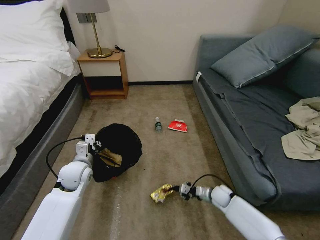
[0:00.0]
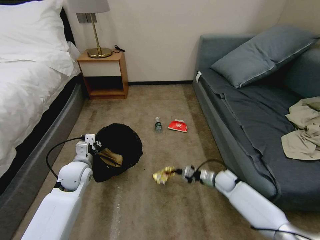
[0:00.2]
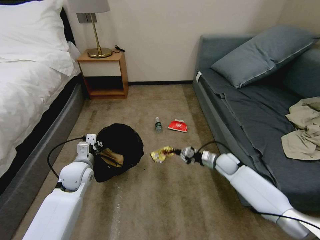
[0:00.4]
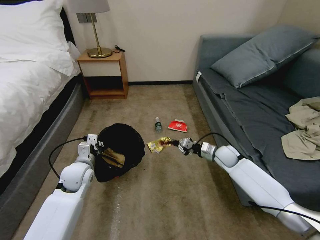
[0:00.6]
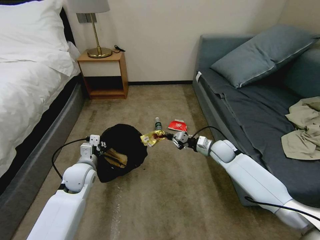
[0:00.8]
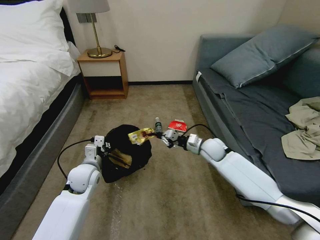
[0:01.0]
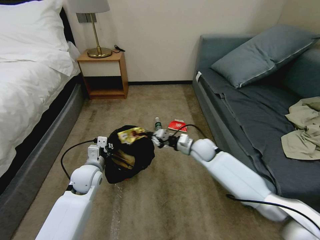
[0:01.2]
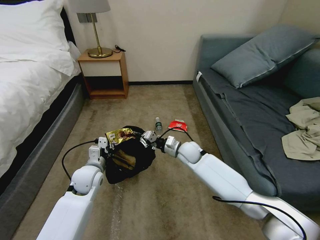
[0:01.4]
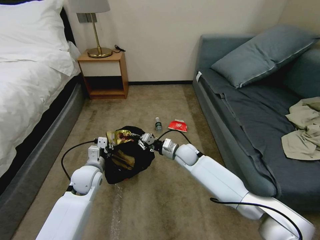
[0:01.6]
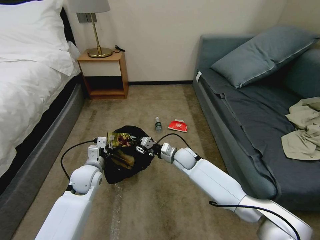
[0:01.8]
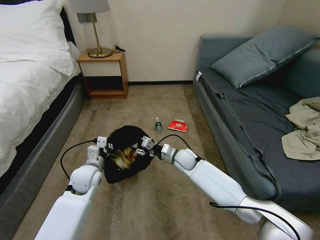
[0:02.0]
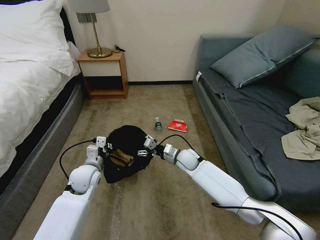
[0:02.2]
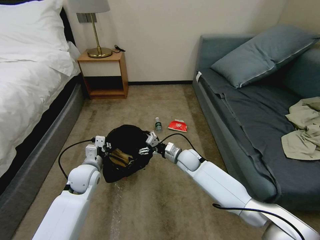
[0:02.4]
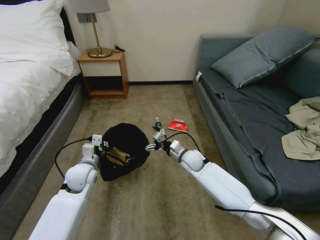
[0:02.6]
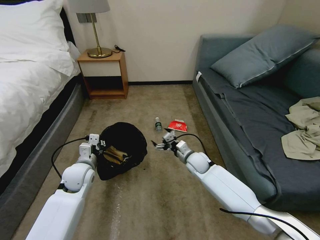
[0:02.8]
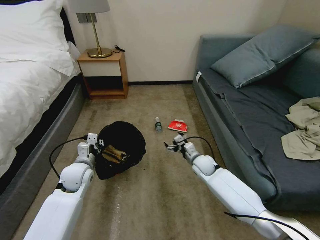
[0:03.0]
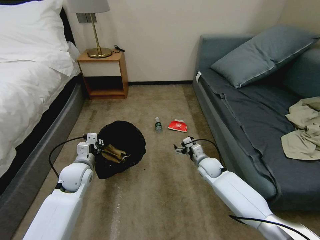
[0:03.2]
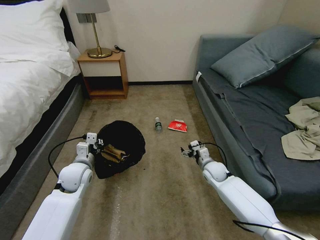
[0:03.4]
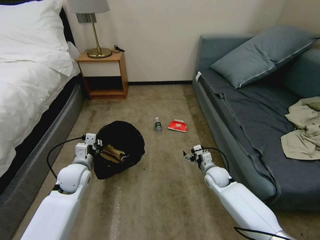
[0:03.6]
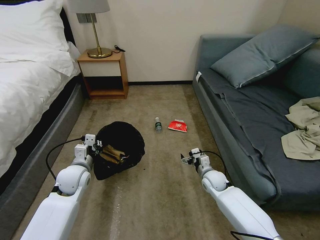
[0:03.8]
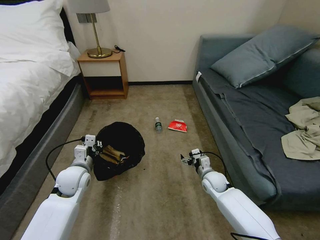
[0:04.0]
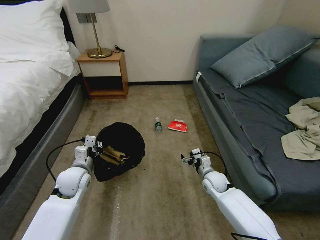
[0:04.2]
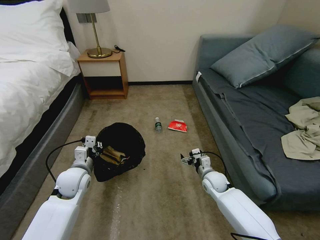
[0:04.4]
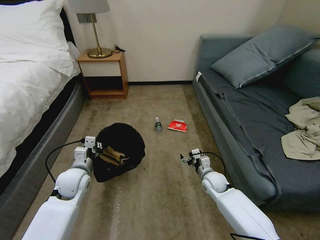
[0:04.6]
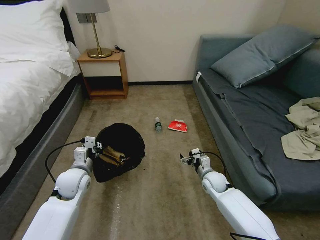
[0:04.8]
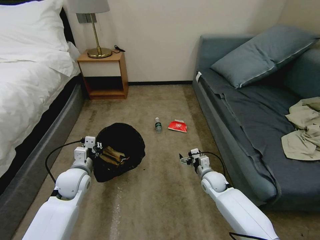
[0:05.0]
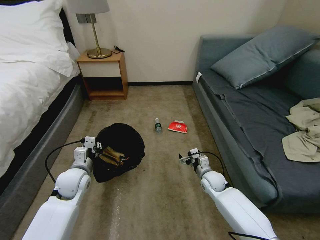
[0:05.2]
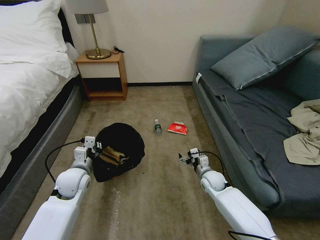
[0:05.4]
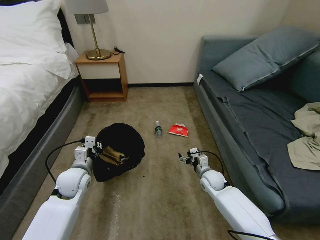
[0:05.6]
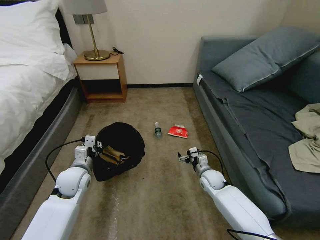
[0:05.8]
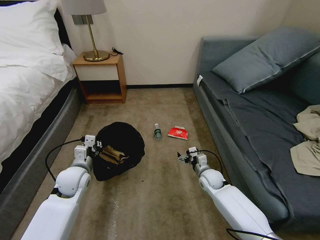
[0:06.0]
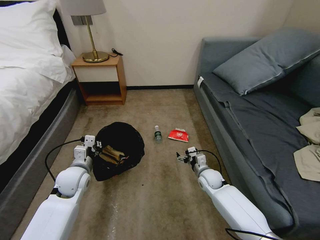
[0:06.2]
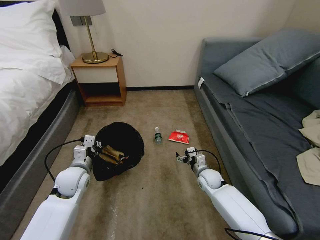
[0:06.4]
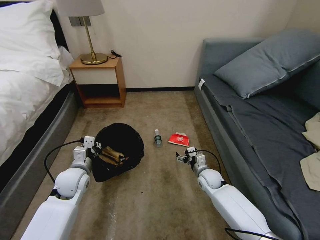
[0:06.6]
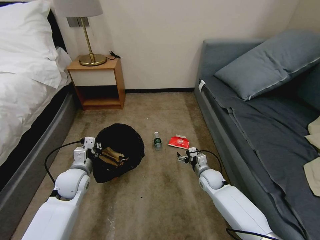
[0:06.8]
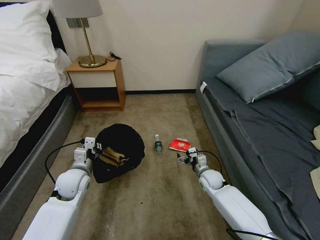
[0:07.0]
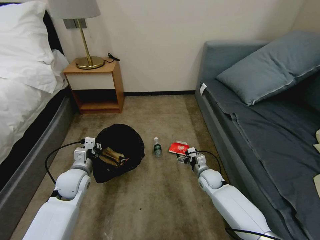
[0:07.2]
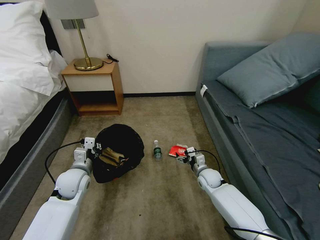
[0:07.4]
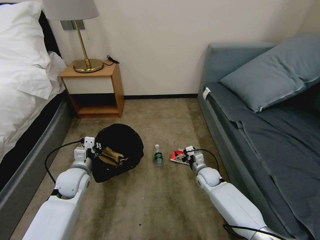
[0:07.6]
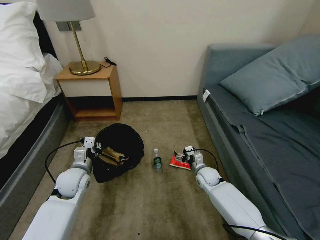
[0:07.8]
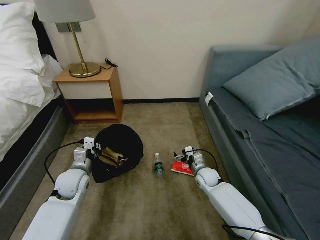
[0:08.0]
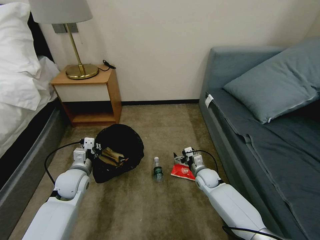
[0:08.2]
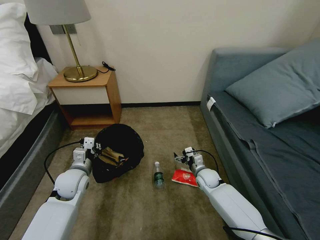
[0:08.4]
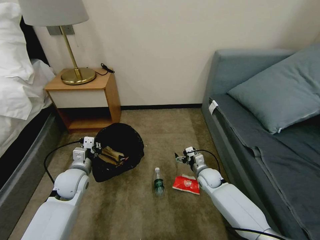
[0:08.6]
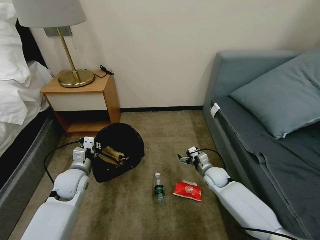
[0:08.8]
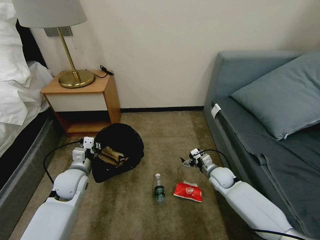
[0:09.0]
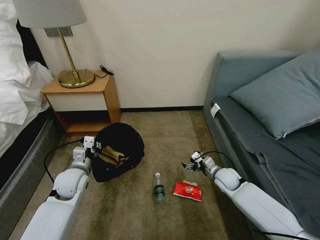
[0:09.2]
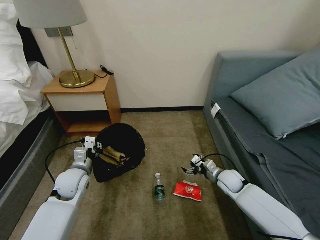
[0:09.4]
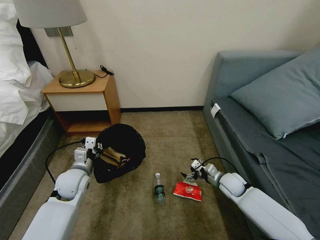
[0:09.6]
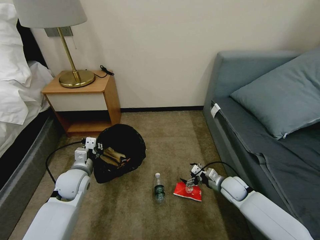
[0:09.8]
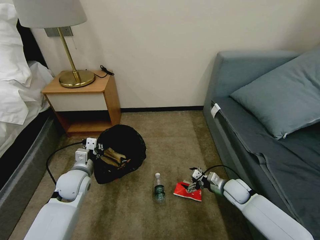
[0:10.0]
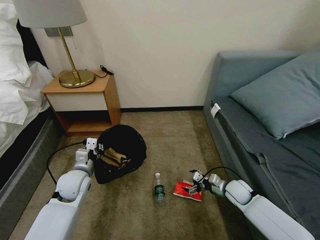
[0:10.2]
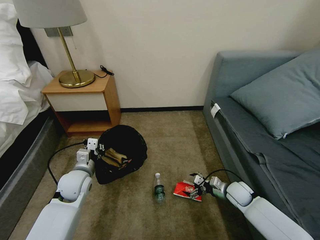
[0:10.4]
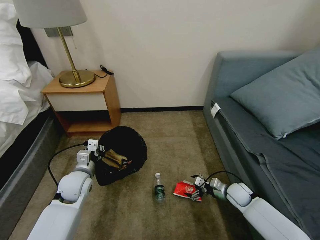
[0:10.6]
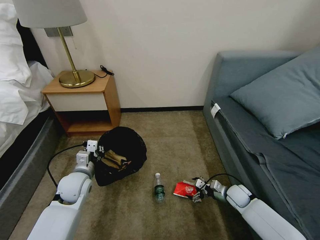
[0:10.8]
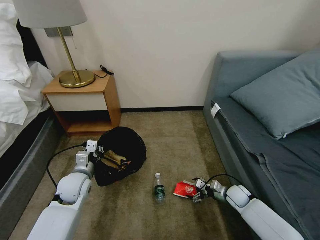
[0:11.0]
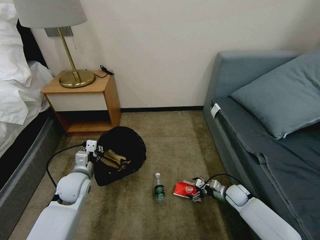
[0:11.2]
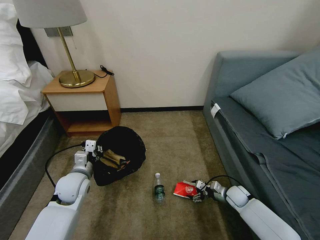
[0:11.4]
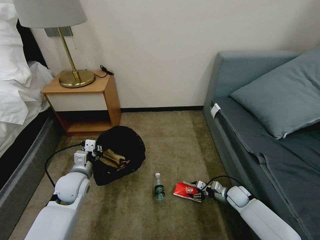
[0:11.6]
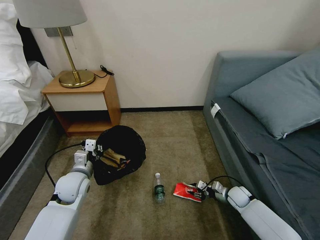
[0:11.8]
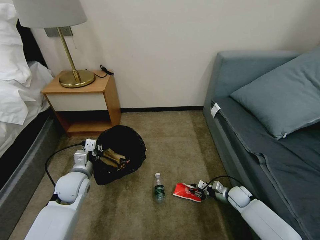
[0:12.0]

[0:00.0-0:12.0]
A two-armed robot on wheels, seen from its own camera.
Task of the whole recording: Pick up the trash bin, then pick up the garbage on the floor and place it into the trash bin.
0:00.0 to 0:01.6: The right gripper travels to the left, upward and forward by some 25 cm.
0:01.6 to 0:03.0: The right gripper travels to the right by approximately 10 cm, and opens.
0:03.0 to 0:04.4: The right gripper heads backward, covering approximately 5 cm.
0:04.4 to 0:06.0: The grippers stay close to where they were, moving slightly.
0:07.6 to 0:09.0: The right gripper moves to the right, approximately 5 cm.
0:09.0 to 0:10.4: The right gripper moves to the right and backward, about 10 cm.
0:10.4 to 0:12.0: The right gripper shifts some 5 cm downward, and closes.

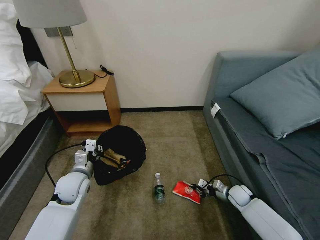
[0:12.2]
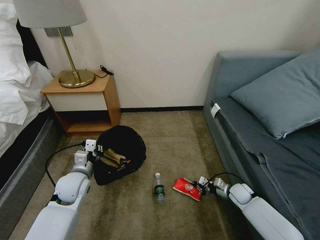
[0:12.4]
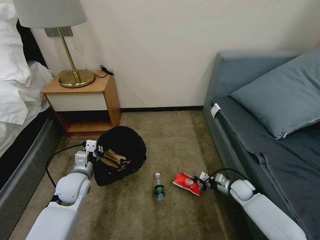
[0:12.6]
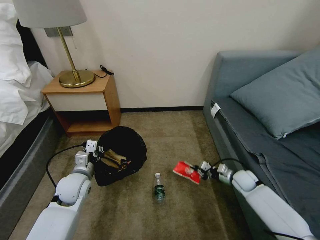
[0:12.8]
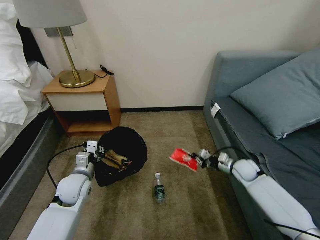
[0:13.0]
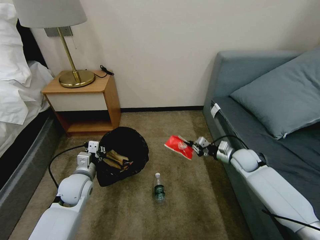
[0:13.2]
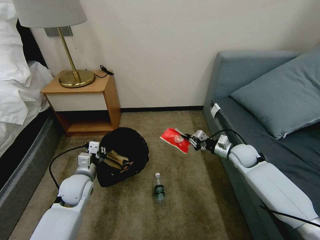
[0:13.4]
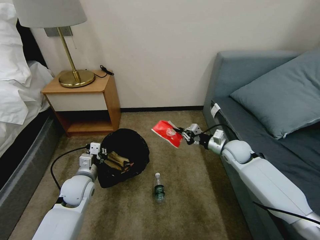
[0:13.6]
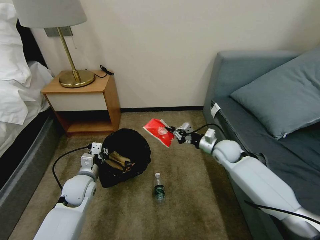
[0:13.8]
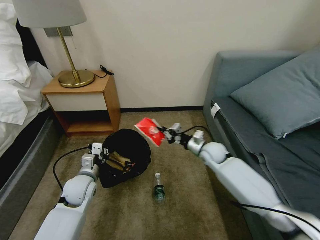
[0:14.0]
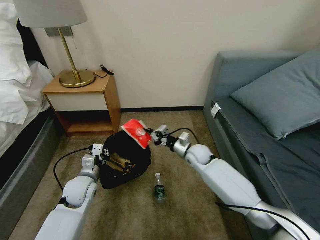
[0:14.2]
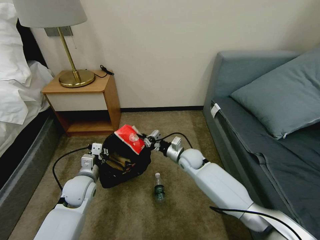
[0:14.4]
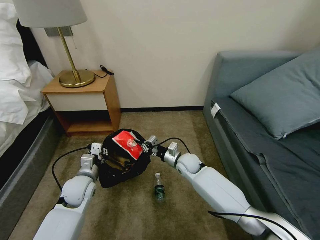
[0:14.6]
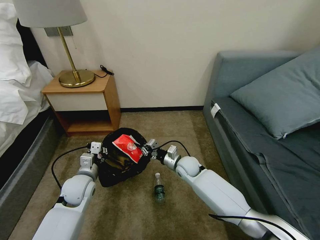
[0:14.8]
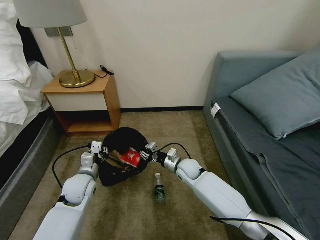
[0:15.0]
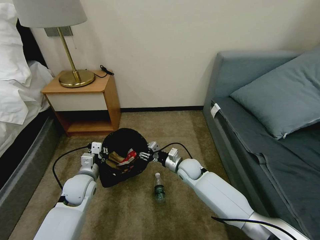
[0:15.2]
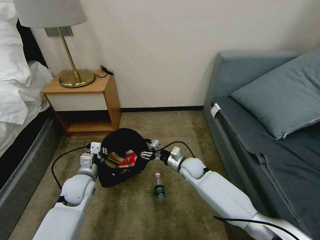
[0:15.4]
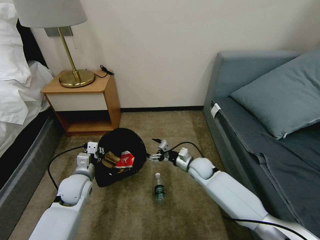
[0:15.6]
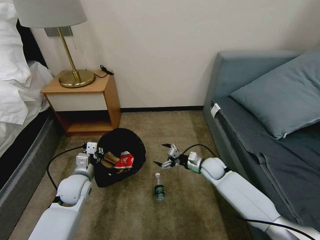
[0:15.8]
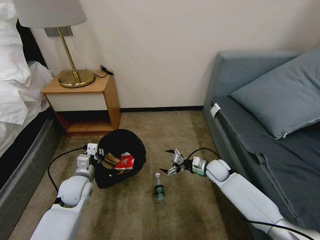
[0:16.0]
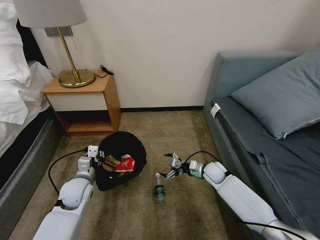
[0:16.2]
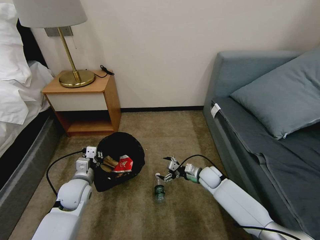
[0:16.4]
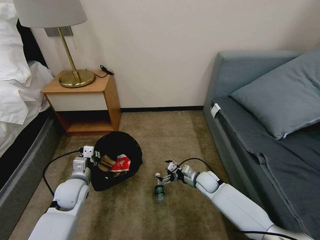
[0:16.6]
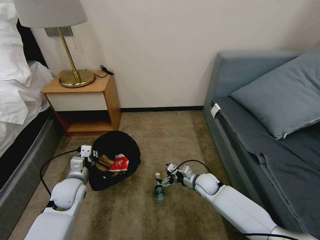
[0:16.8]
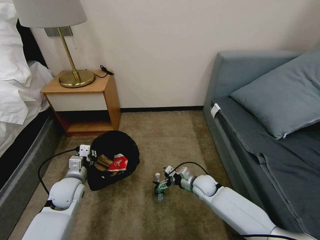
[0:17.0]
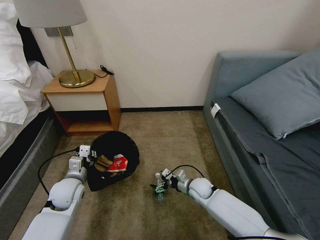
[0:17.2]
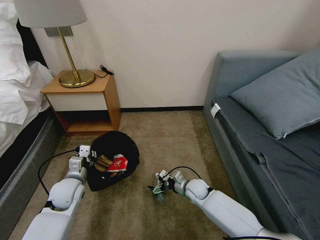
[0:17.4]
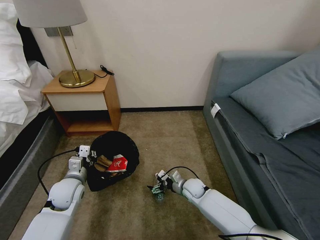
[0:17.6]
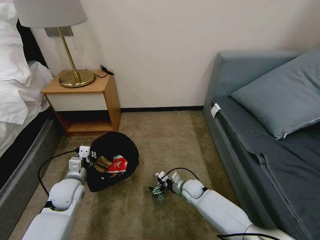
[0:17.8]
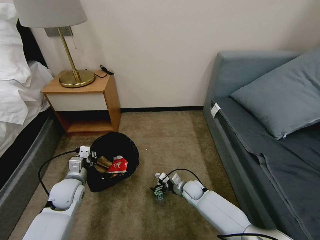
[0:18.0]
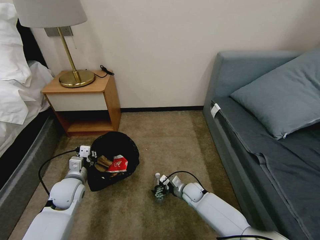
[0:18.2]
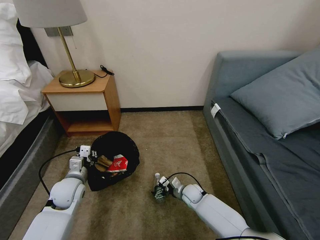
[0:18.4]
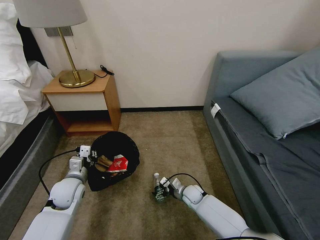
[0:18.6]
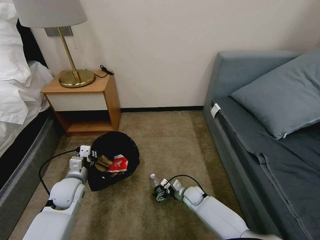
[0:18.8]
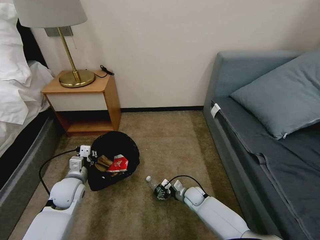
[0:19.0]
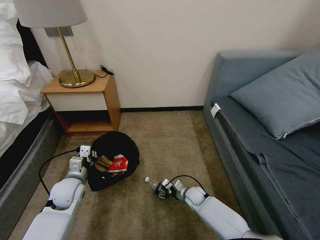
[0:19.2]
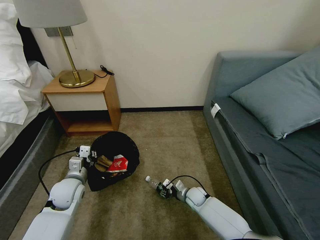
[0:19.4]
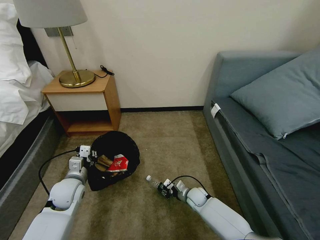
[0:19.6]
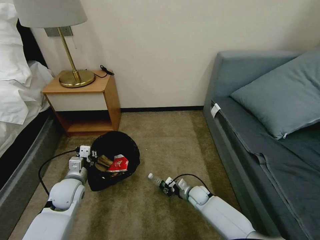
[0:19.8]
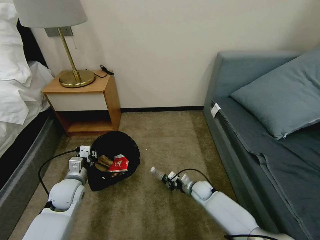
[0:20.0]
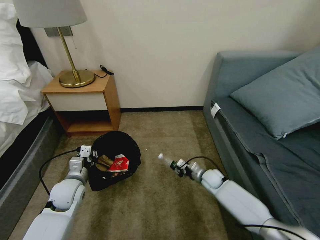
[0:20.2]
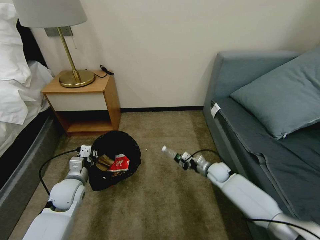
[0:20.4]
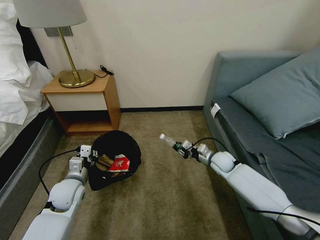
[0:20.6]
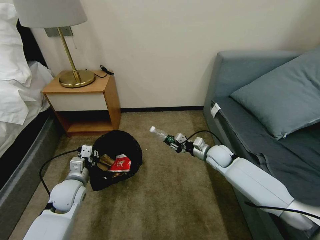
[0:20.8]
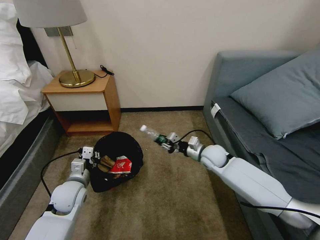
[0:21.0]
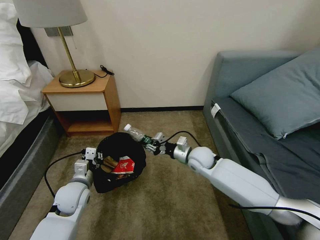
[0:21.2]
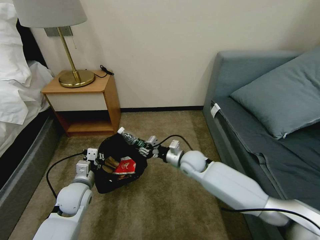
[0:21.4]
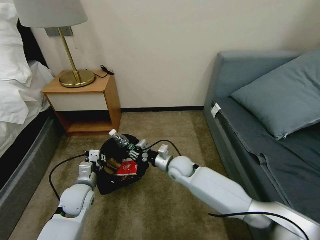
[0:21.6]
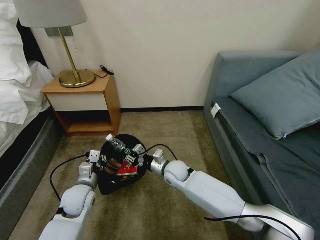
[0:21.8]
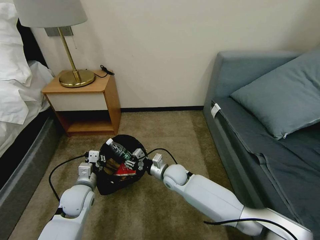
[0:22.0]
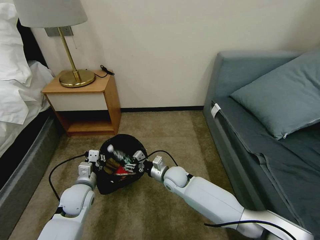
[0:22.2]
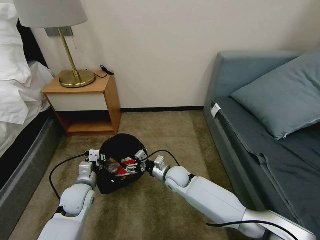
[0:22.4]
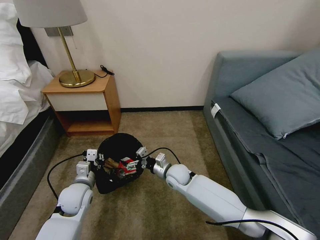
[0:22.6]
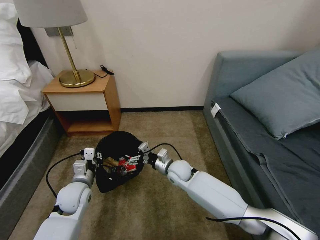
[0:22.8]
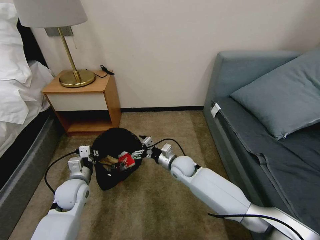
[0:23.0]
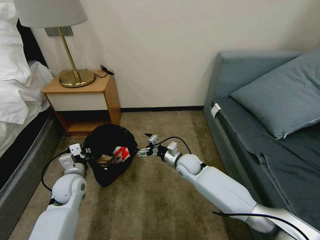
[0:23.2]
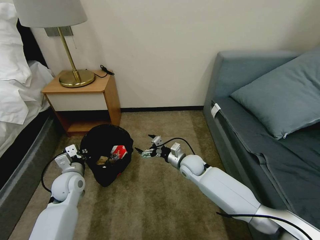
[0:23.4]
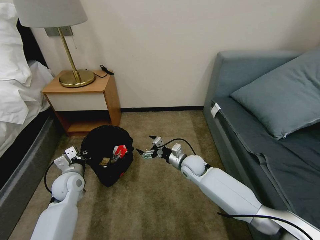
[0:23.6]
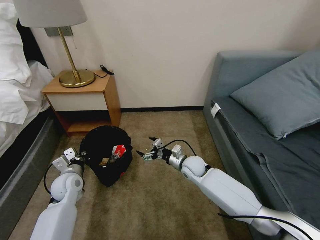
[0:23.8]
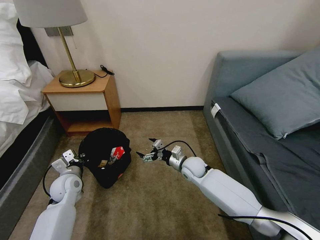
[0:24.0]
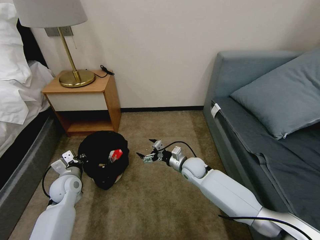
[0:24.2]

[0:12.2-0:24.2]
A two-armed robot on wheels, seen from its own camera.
Task of the whole recording: Pick up the trash bin, then pick up the garbage on the floor and place it into the trash bin.
0:12.2 to 0:13.8: The right gripper moves upward, to the left and forward, approximately 25 cm.
0:13.8 to 0:15.2: The right gripper shifts roughly 15 cm to the left and downward, and opens up.
0:15.2 to 0:16.6: The right gripper is displaced to the right and downward by about 10 cm, and opens.
0:16.6 to 0:18.2: The right gripper travels downward and to the left by roughly 10 cm.
0:18.2 to 0:19.8: The right gripper closes.
0:19.8 to 0:21.2: The right gripper goes roughly 20 cm upward.
0:21.2 to 0:22.6: The right gripper heads to the left and downward, covering about 10 cm, and opens.
0:22.6 to 0:24.2: The left gripper moves to the left, approximately 5 cm; the right gripper travels to the right by roughly 5 cm.
